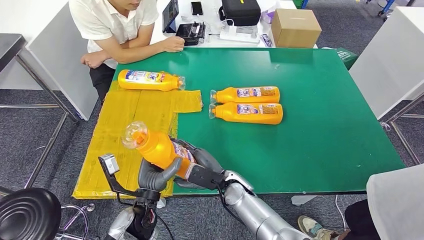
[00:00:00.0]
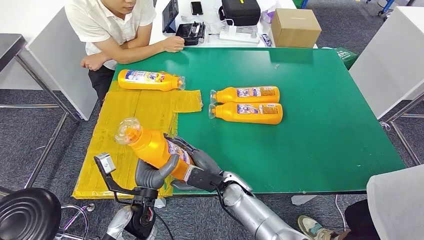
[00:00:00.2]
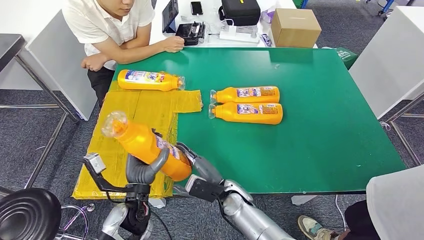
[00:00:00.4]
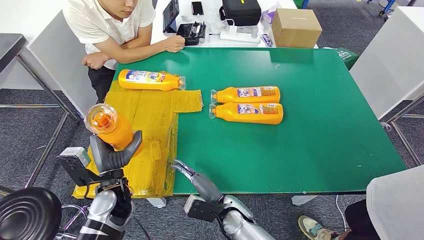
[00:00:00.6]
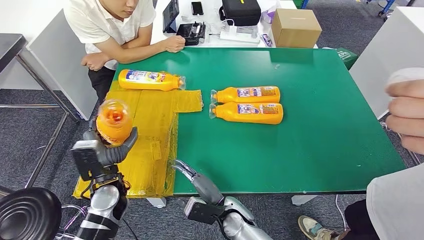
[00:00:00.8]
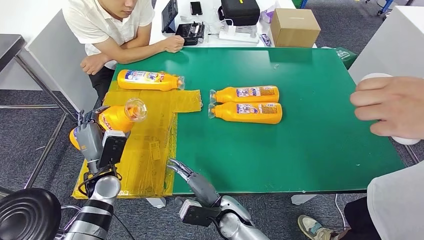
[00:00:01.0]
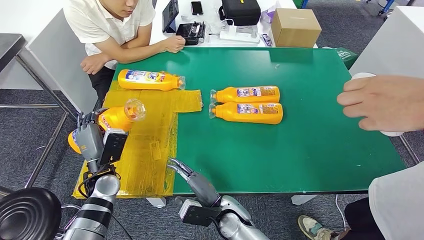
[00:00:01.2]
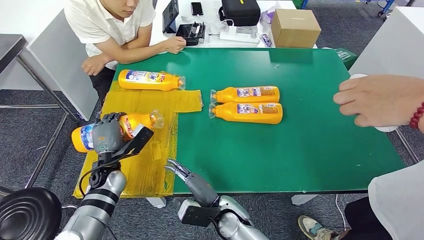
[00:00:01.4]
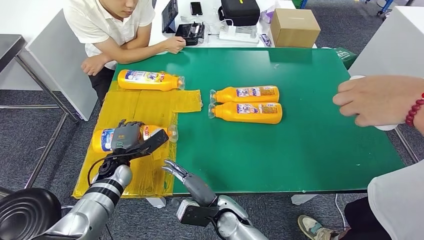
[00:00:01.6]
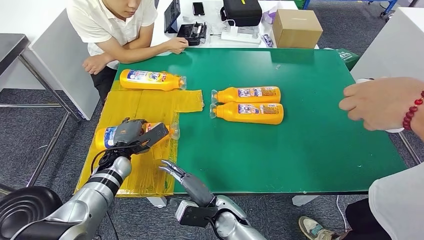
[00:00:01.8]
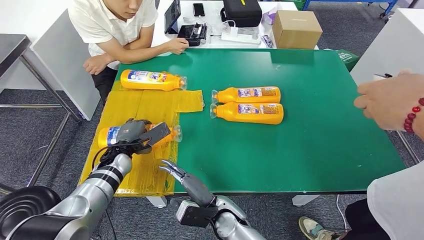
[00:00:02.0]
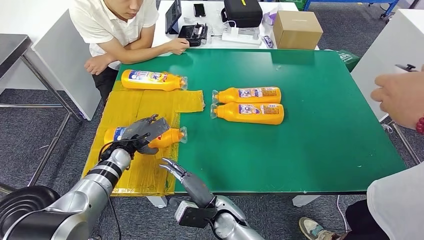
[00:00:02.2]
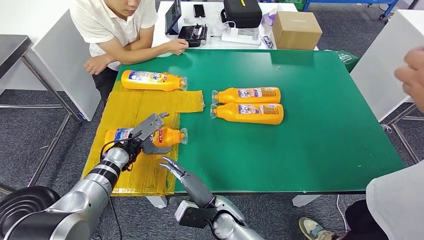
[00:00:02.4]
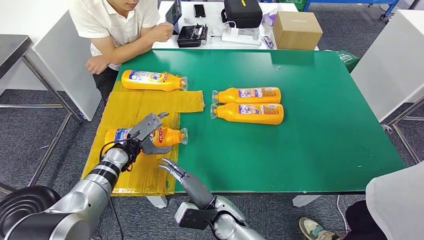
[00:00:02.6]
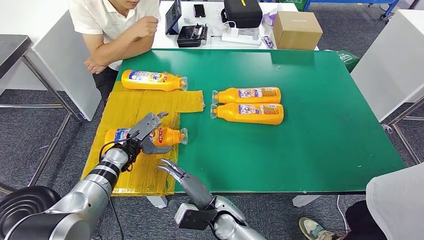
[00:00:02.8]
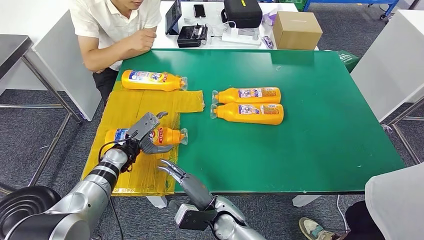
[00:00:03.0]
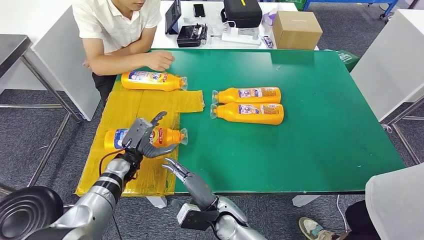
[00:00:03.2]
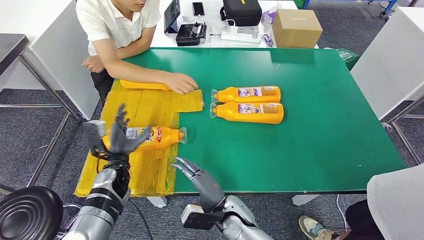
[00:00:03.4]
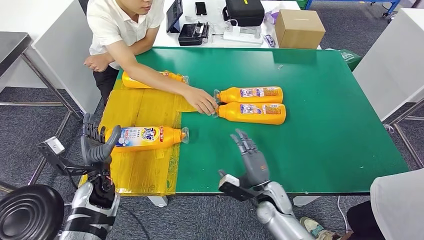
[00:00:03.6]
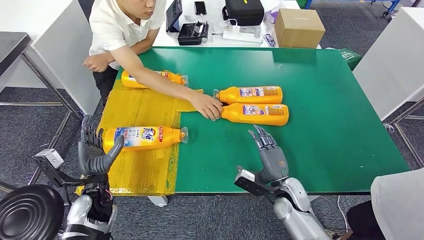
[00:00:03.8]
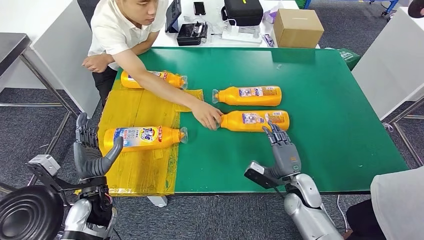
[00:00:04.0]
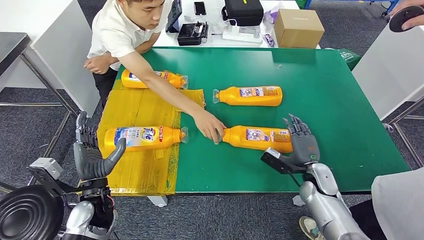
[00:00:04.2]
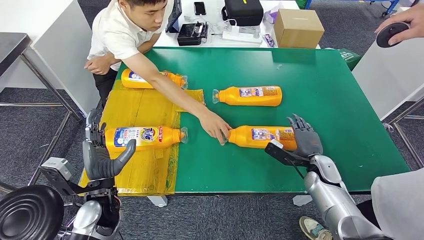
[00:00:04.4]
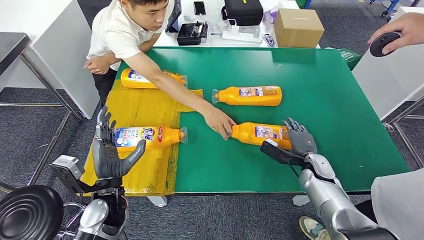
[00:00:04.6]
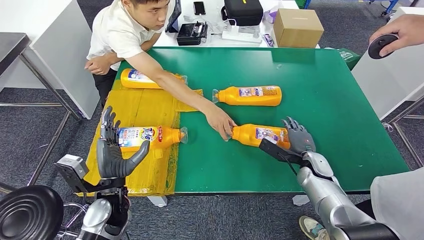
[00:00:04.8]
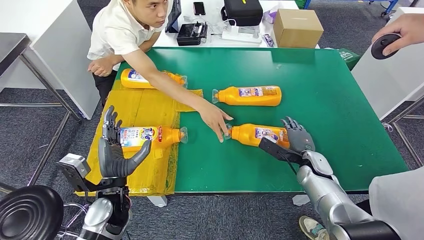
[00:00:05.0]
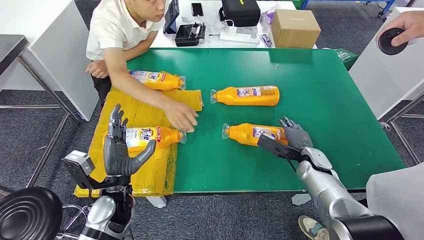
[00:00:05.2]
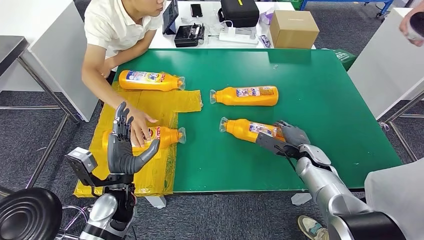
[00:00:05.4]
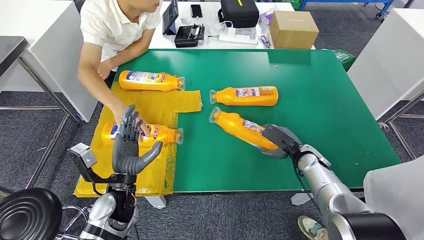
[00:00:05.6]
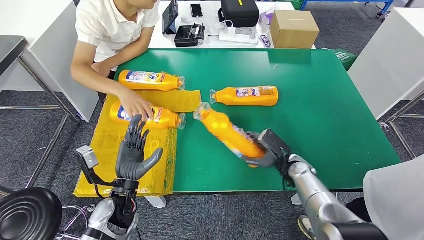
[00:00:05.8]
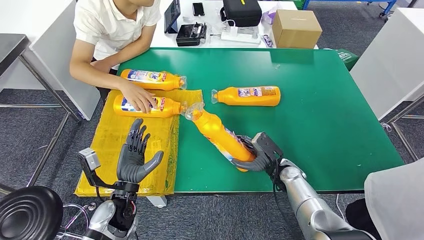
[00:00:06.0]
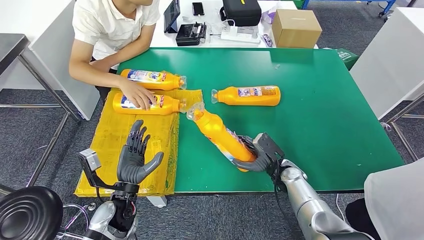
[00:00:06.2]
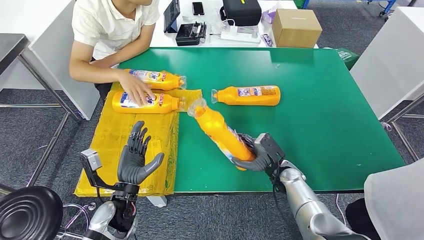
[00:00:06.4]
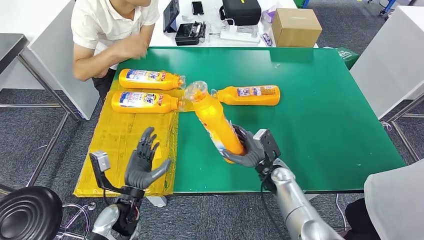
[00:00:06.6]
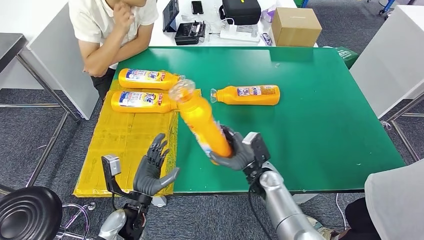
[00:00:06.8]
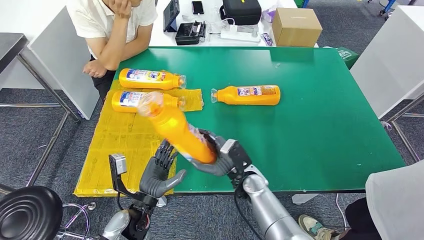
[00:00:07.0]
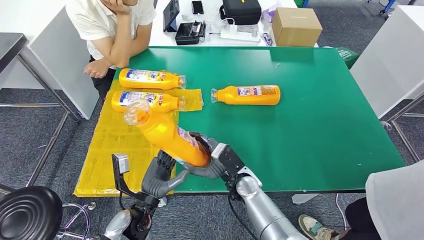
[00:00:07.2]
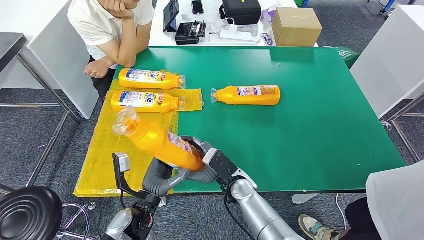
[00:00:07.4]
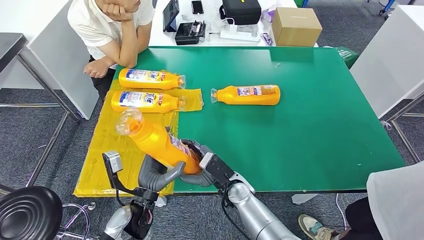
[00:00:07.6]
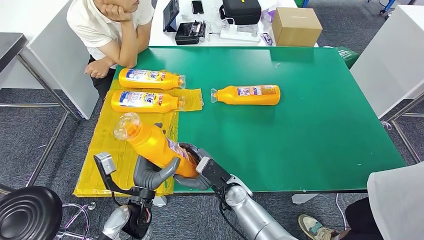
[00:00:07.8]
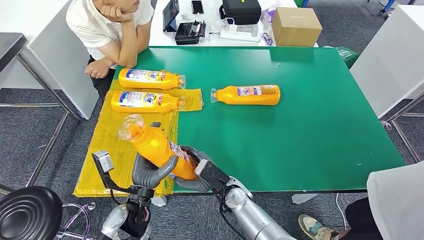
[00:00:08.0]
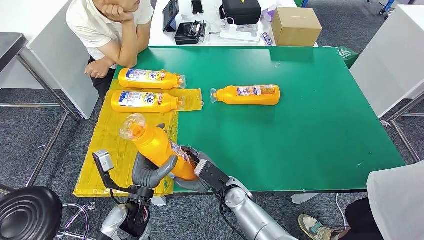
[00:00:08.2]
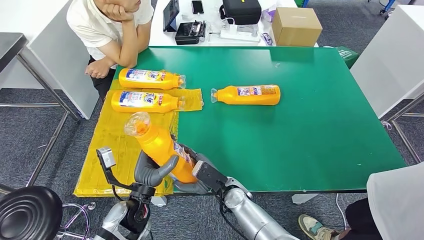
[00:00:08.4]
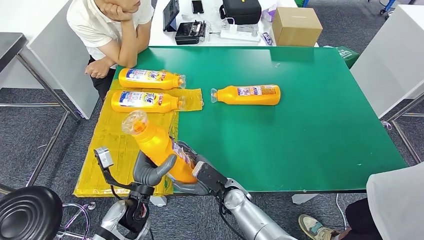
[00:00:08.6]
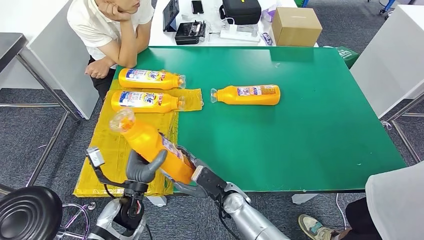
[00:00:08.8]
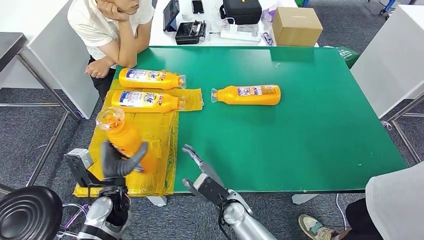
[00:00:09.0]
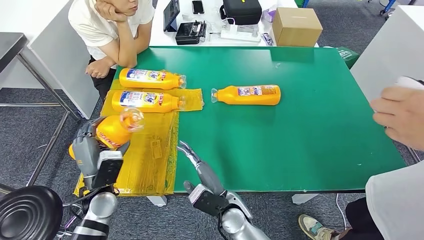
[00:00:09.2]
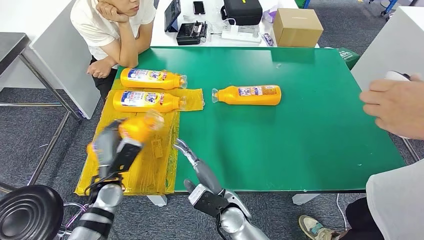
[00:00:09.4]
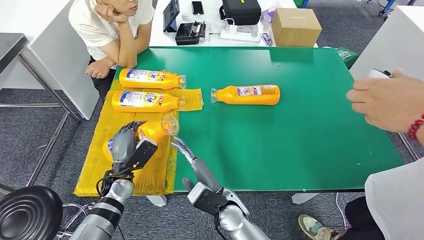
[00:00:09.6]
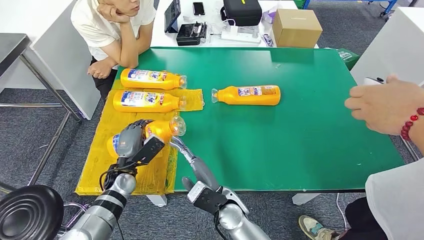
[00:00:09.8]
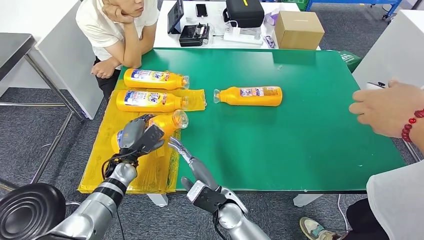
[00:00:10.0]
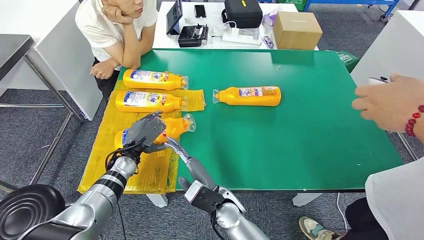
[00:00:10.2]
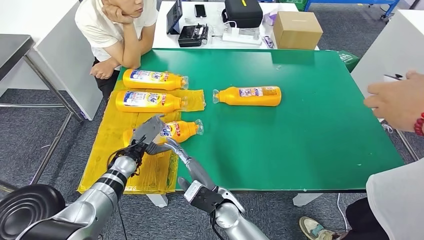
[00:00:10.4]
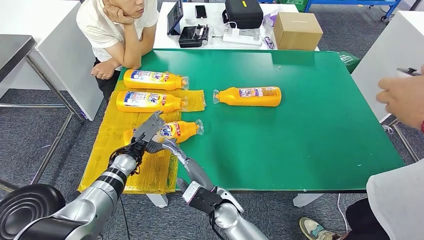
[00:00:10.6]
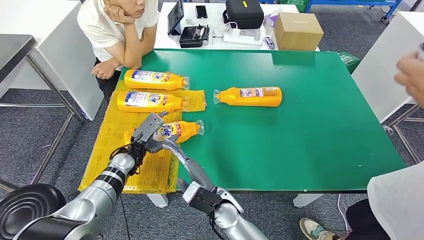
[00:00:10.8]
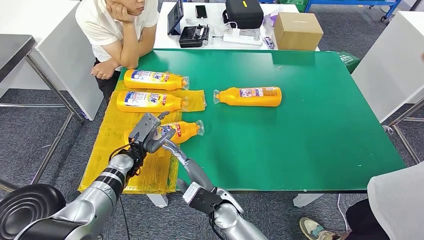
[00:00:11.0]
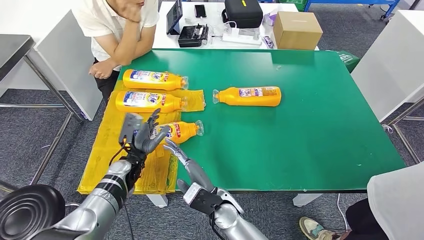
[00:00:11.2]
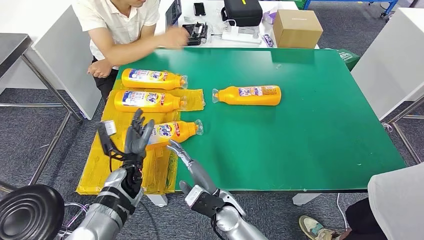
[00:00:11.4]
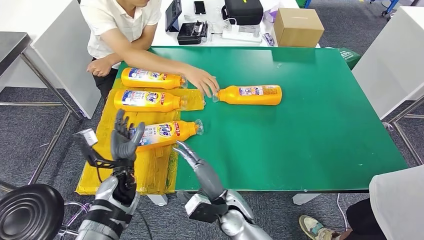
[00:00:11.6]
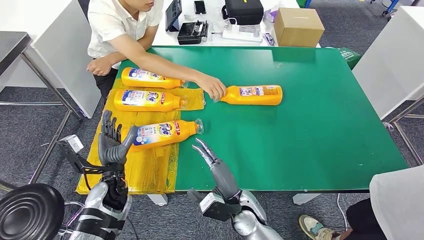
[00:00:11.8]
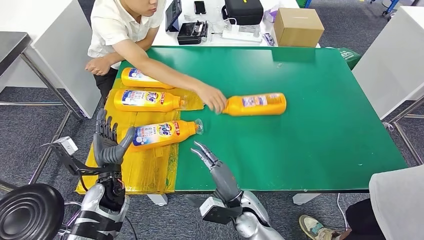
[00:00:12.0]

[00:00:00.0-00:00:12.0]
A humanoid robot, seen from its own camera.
Step, 00:00:00.0 to 00:00:03.0: Flip the bottle to face forward.
Step, 00:00:03.4 to 00:00:06.4: Pick up the bottle from the table.
Step, 00:00:06.8 to 00:00:11.6: Flip the bottle to face forward.
00:00:07.6 to 00:00:09.0: The left hand is displaced to the left by approximately 5 cm.

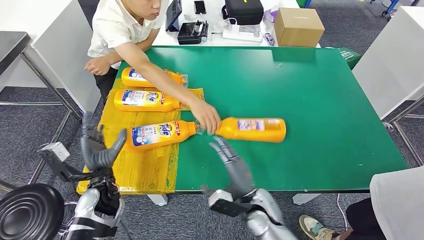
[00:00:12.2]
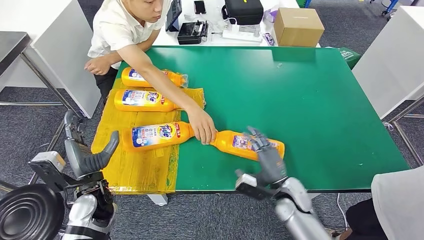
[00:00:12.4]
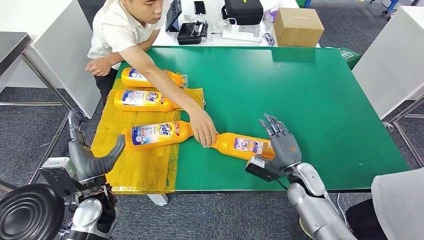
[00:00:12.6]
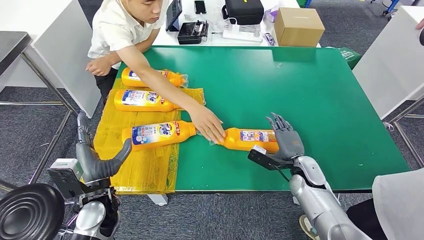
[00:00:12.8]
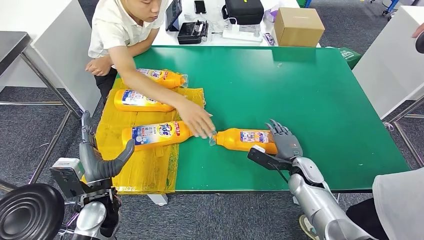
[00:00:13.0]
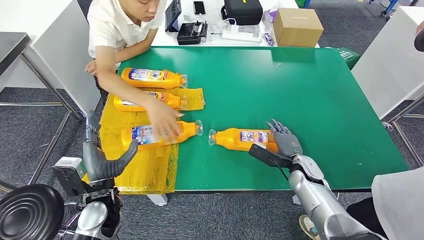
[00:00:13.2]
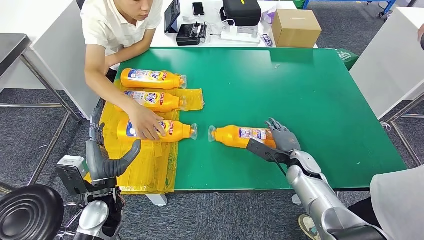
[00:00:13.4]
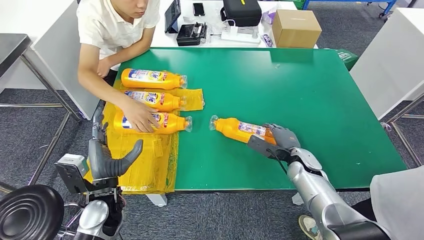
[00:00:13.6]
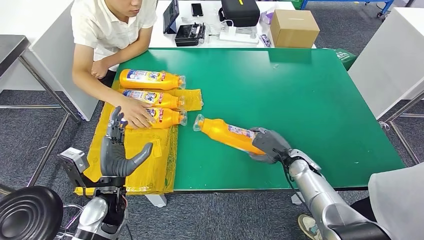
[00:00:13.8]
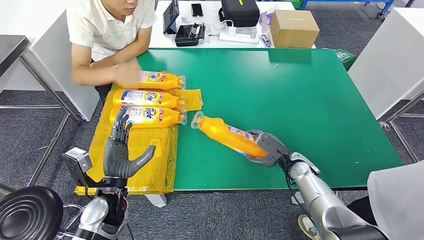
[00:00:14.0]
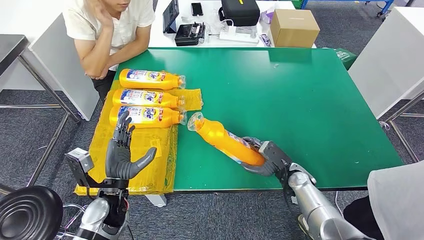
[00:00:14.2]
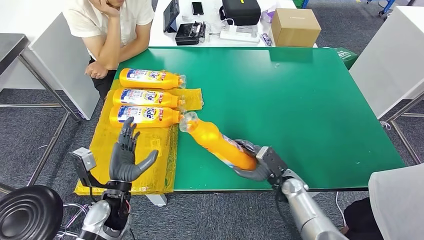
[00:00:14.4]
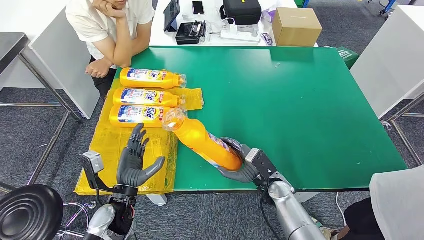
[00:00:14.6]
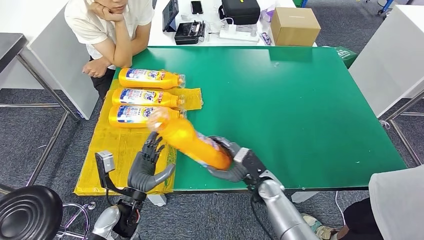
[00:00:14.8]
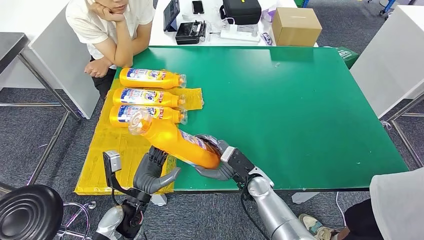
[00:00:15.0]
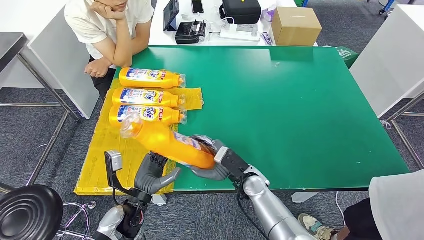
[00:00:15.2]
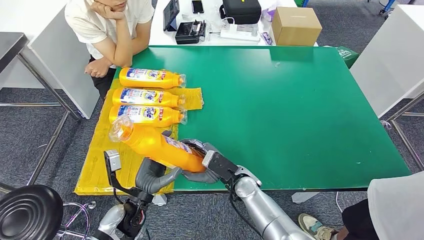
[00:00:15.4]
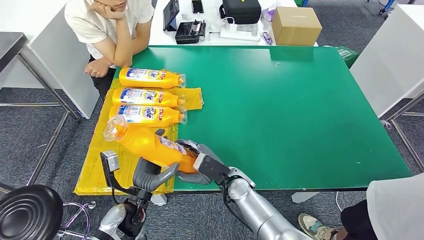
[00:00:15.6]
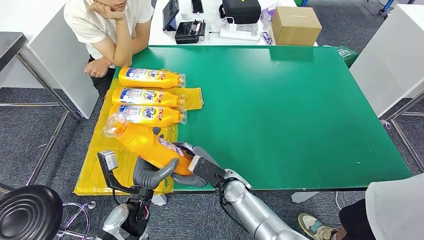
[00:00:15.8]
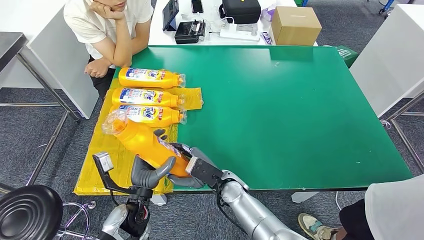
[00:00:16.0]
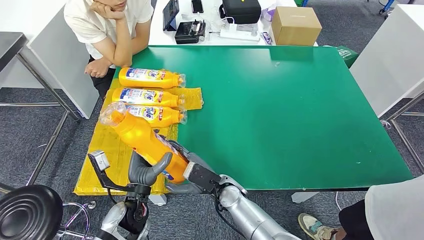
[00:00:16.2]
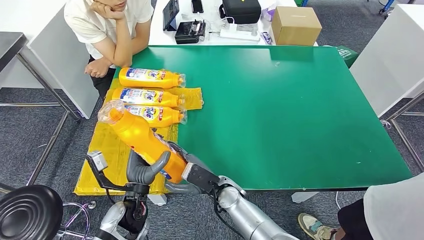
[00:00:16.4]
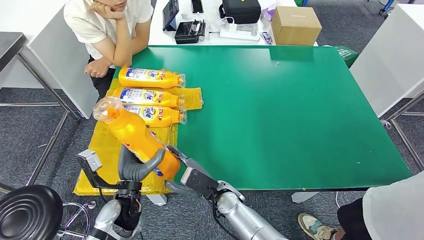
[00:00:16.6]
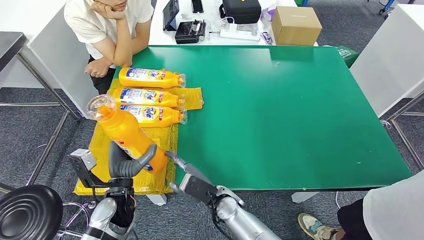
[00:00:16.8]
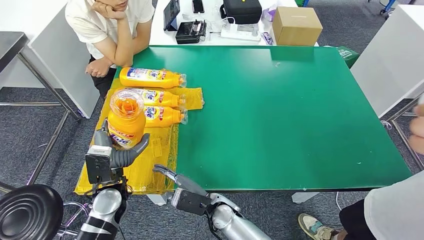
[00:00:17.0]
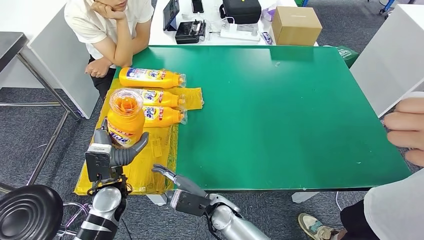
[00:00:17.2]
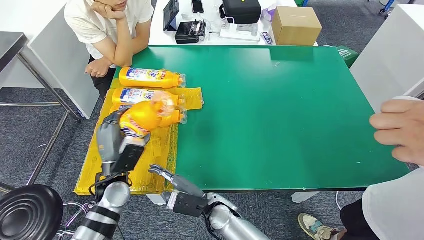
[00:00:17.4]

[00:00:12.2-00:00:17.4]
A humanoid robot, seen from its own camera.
Step, 00:00:12.2 to 00:00:15.4: Pick up the bottle from the table.
00:00:15.6 to 00:00:17.4: The right hand is displaced backward by some 5 cm; the left hand travels forward and to the left by roughly 10 cm.
